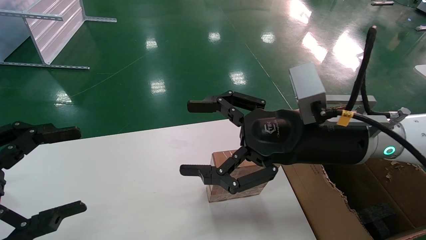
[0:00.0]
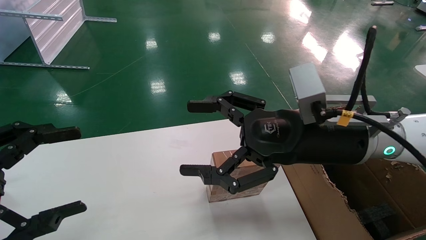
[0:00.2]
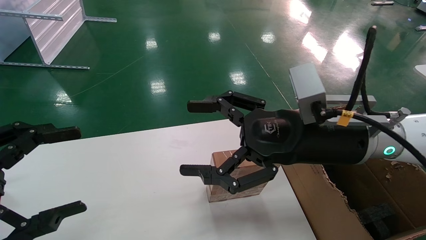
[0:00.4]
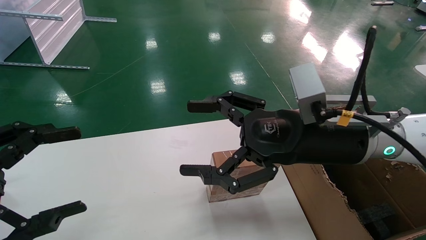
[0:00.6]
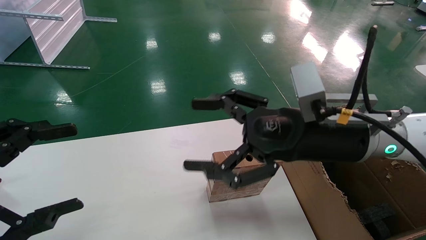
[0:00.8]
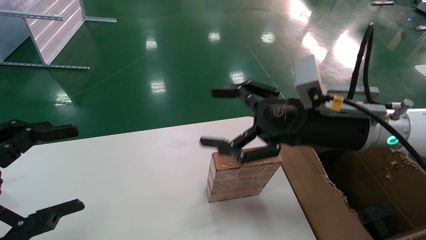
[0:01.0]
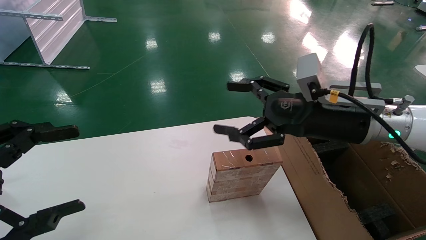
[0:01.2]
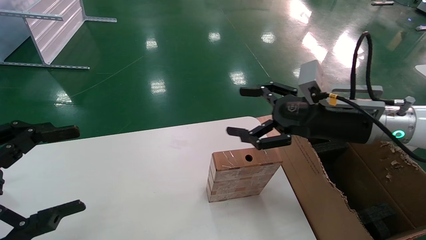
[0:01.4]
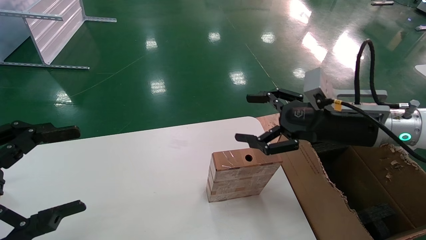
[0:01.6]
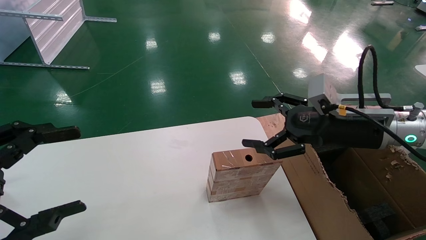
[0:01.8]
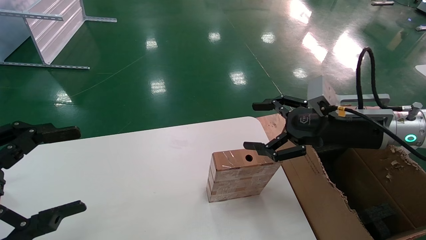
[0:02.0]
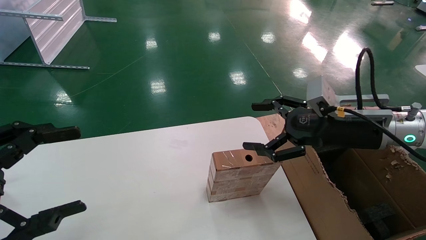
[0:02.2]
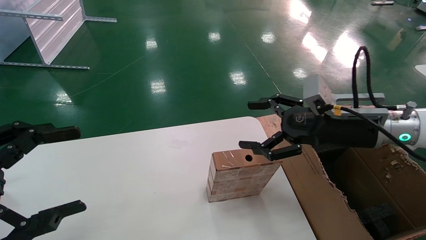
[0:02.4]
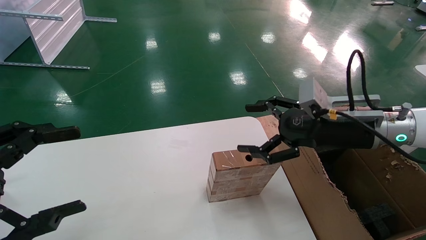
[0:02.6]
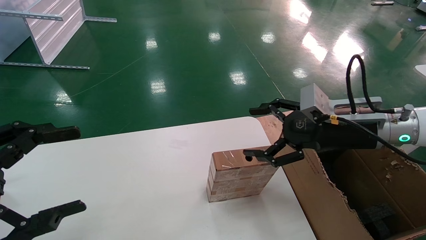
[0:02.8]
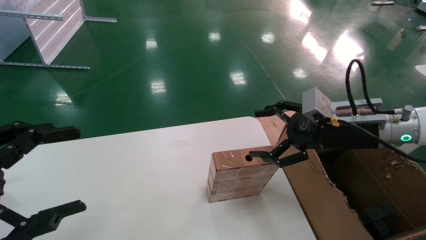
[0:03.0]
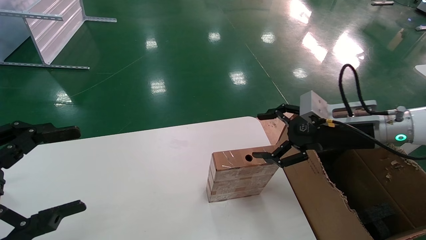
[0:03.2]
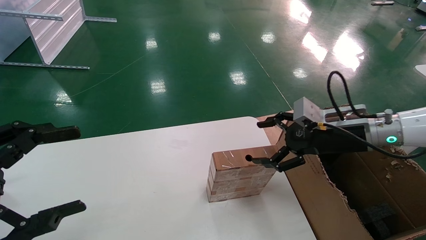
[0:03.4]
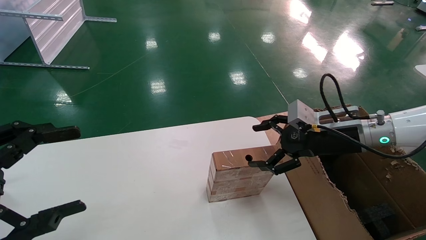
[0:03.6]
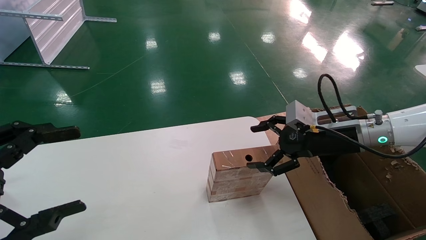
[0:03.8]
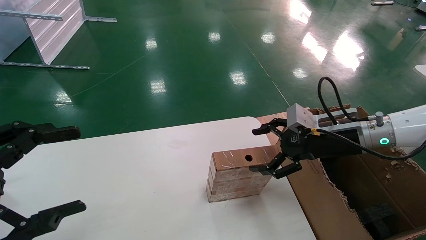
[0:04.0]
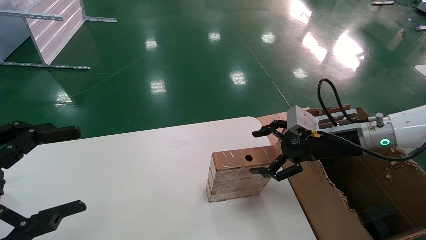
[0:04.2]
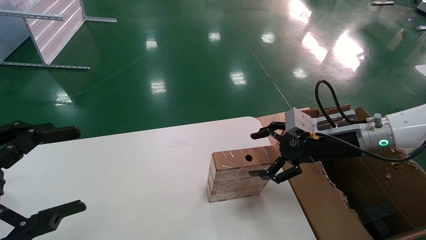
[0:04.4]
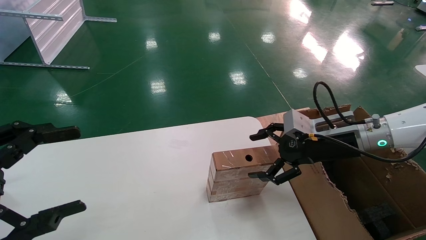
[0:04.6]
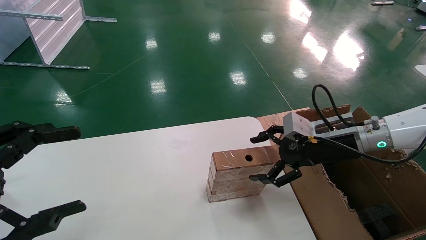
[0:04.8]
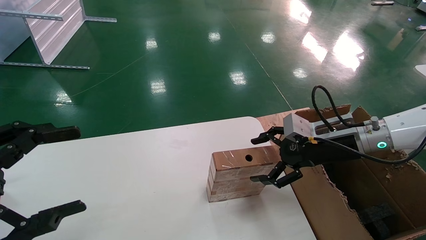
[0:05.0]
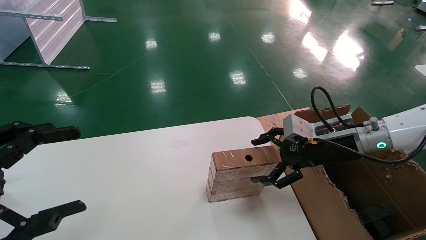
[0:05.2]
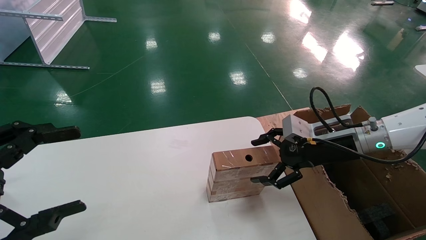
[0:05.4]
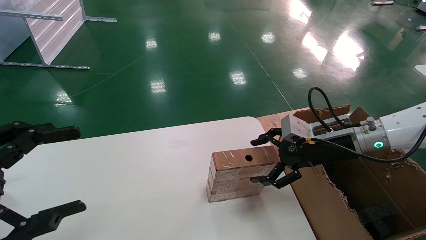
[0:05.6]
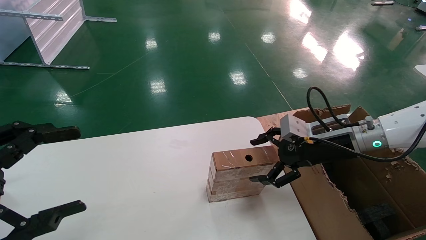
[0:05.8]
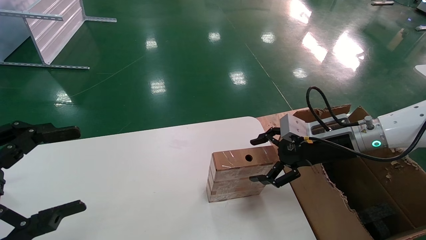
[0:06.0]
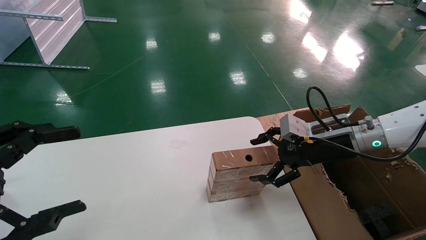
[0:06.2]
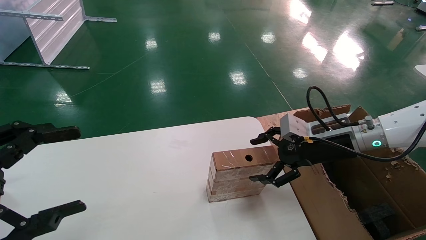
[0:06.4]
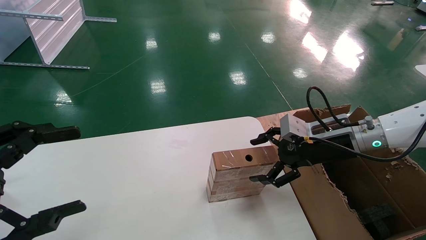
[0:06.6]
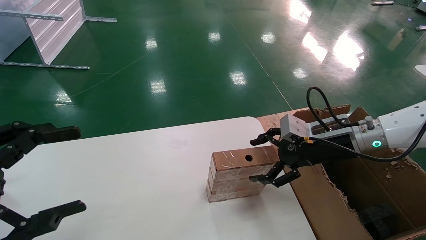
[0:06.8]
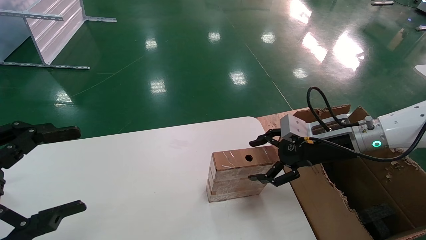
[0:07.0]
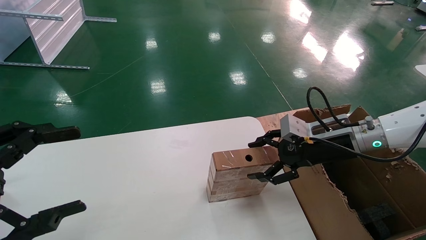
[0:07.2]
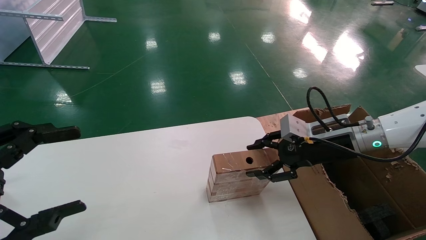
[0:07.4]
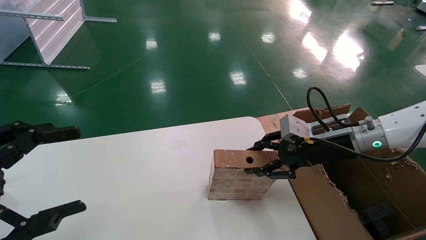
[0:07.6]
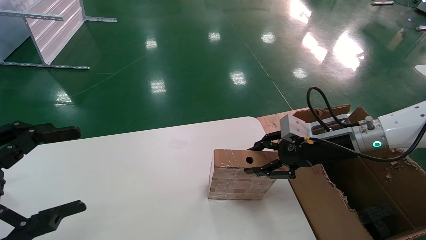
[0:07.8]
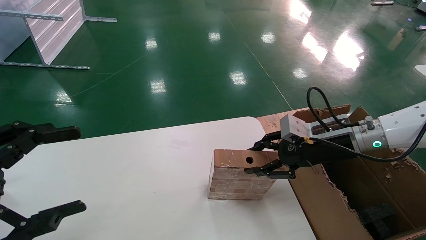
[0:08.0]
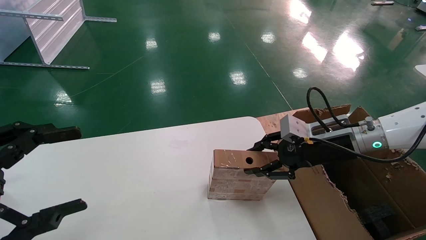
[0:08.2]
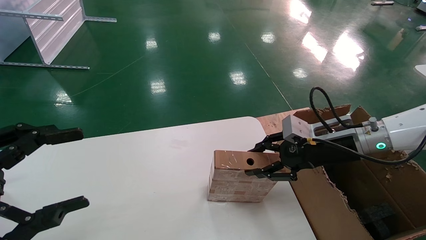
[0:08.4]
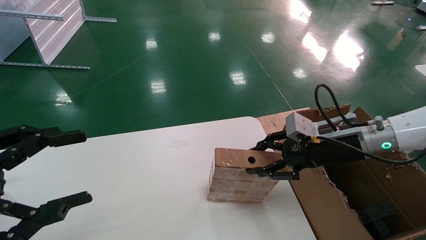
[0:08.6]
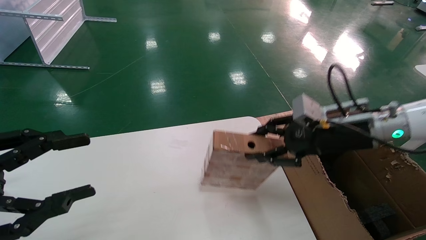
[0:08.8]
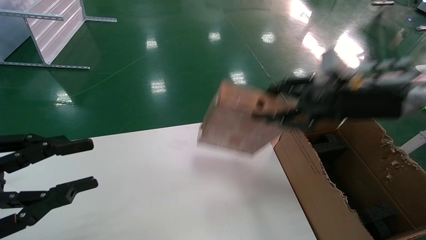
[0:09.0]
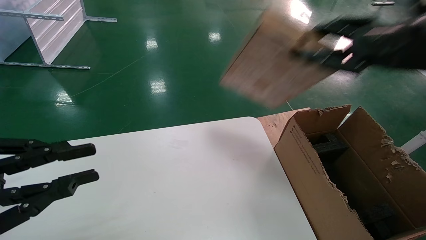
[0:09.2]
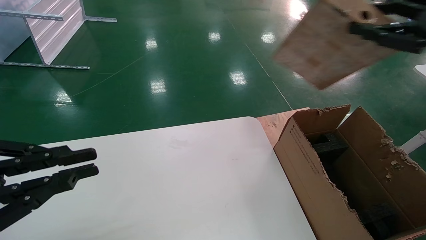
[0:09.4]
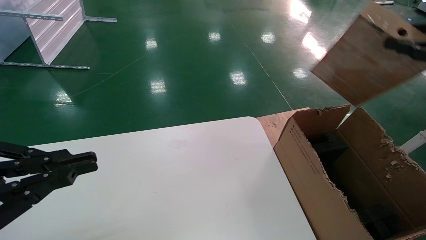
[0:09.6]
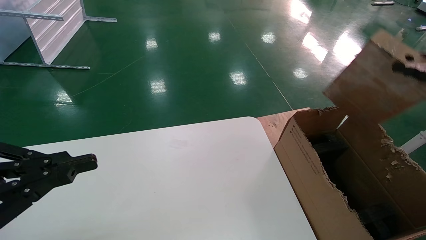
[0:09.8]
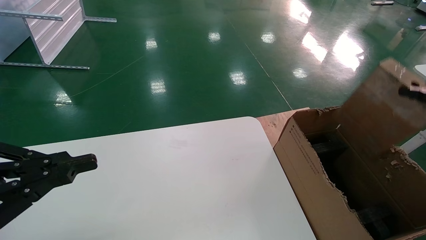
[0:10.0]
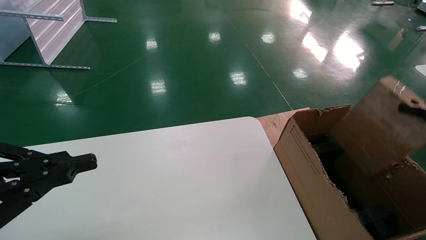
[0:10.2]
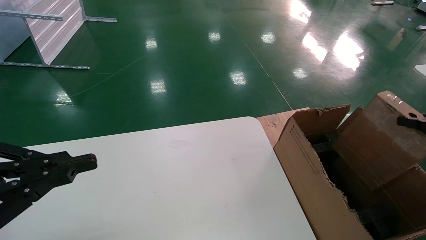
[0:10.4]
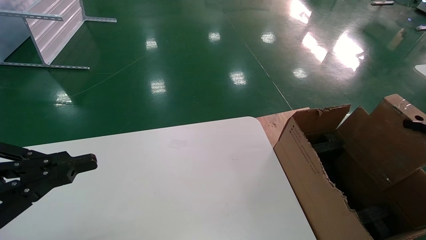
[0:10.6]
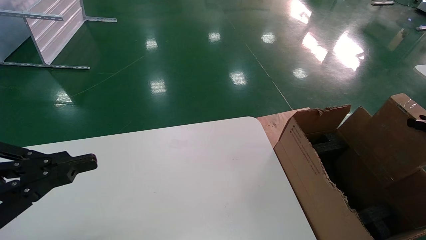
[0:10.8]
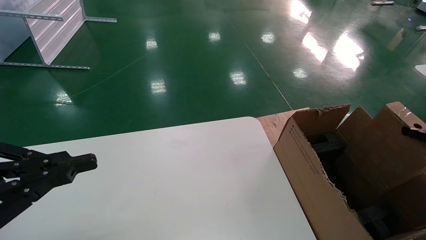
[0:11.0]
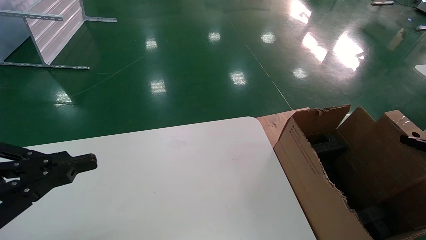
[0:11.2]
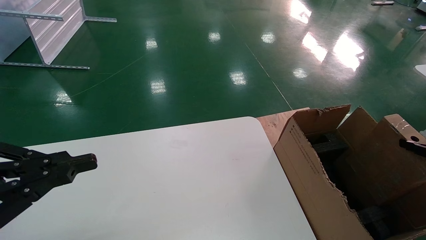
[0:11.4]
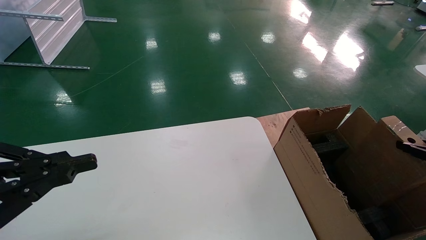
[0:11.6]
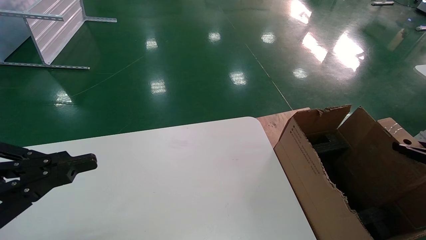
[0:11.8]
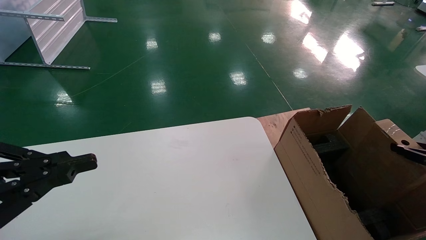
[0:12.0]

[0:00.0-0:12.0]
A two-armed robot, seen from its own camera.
Task of the whole recording: put the box on the table into the big box.
Step, 0:01.0 to 0:07.8: Pick up the mouse and the power cord paper box.
0:00.0 to 0:01.6: The right gripper is displaced to the right by about 10 cm.
0:01.6 to 0:03.0: The grippers stay close to where they were, moving slightly.
0:03.0 to 0:04.4: The grippers make only small movements.
0:04.4 to 0:06.0: The two grippers keep their place.
0:06.0 to 0:07.6: The right gripper closes.
0:07.6 to 0:09.0: The left gripper closes up. The right gripper travels upward and backward by about 15 cm.
0:09.0 to 0:10.4: The left gripper closes, while the right gripper goes approximately 25 cm to the right and backward.
0:10.4 to 0:12.0: The right gripper is displaced downward by about 10 cm.

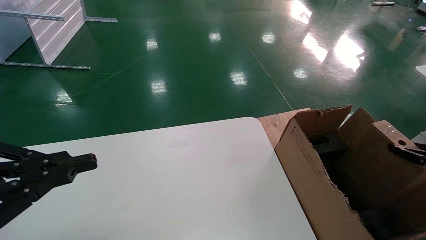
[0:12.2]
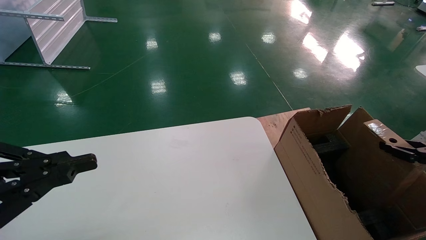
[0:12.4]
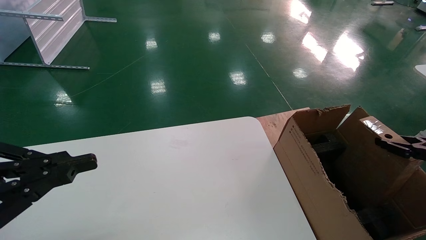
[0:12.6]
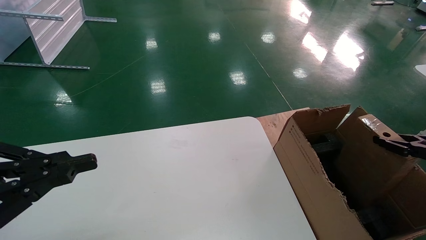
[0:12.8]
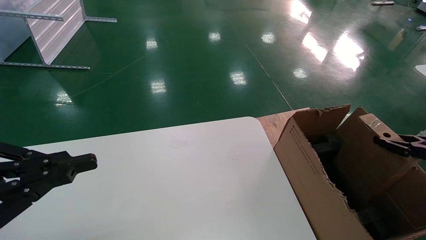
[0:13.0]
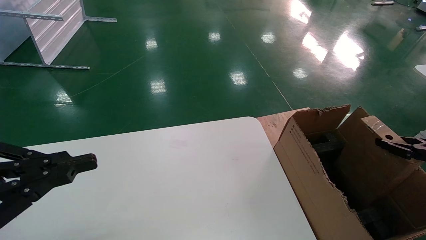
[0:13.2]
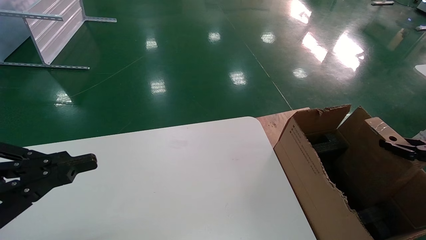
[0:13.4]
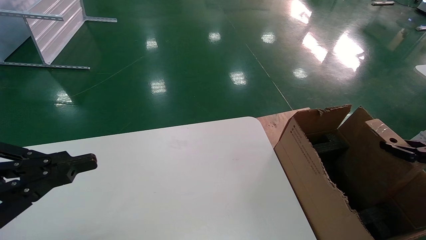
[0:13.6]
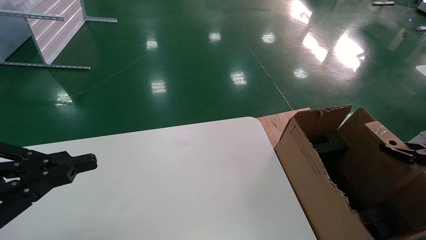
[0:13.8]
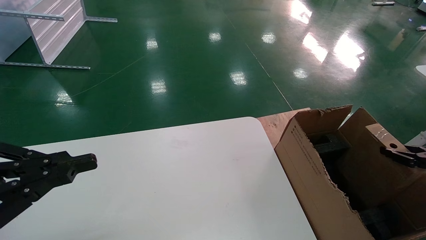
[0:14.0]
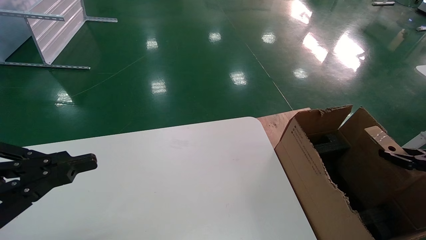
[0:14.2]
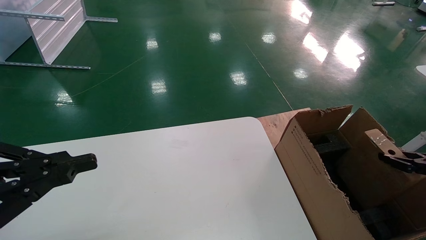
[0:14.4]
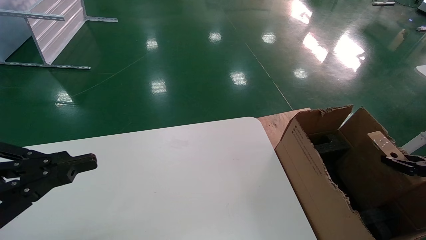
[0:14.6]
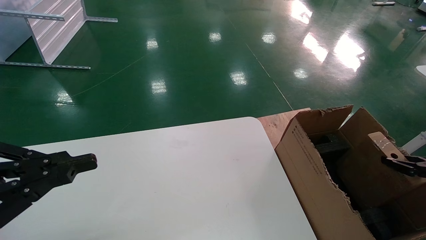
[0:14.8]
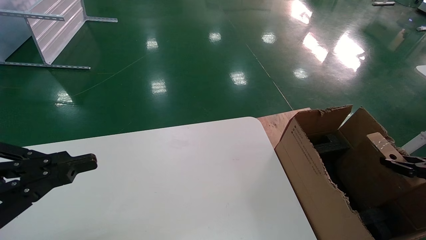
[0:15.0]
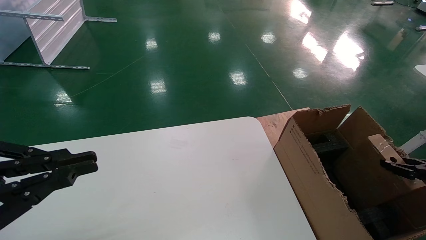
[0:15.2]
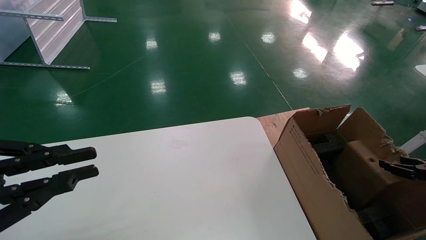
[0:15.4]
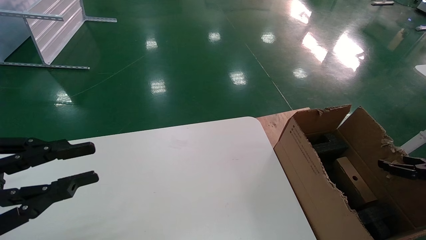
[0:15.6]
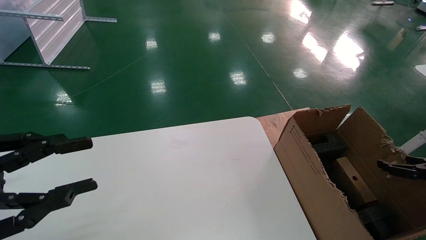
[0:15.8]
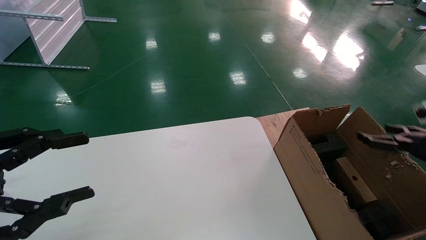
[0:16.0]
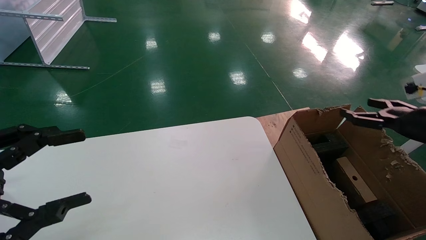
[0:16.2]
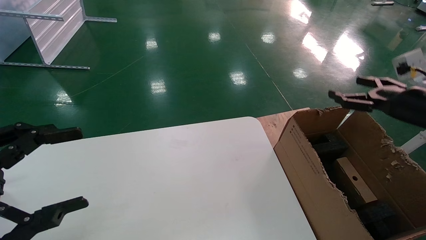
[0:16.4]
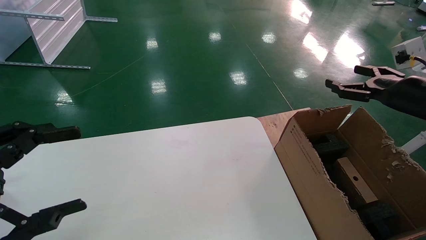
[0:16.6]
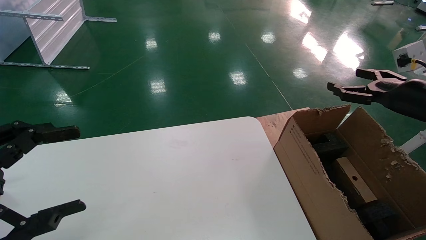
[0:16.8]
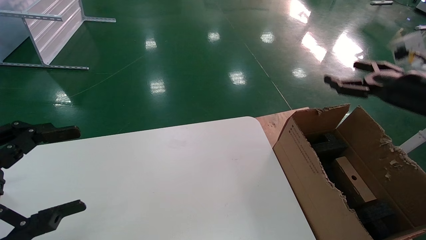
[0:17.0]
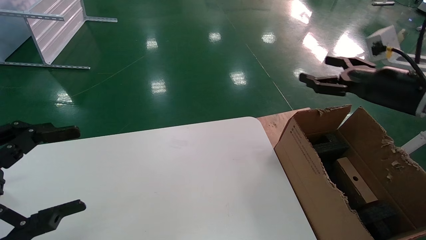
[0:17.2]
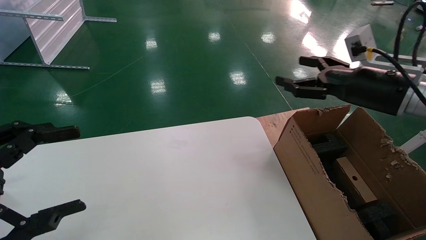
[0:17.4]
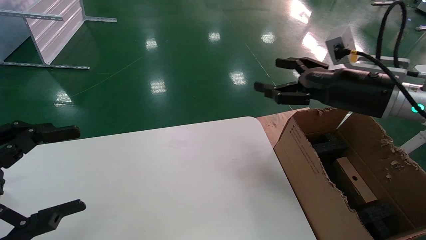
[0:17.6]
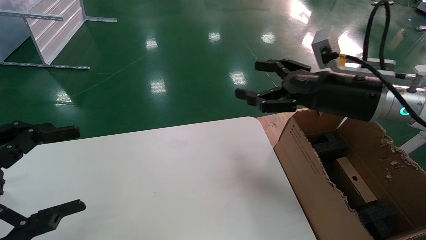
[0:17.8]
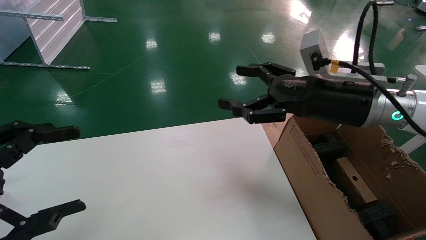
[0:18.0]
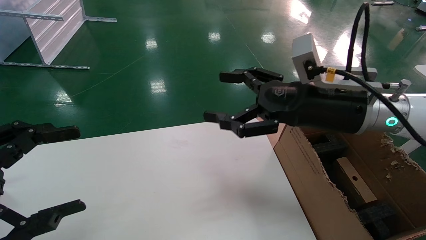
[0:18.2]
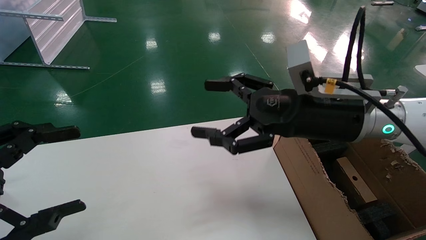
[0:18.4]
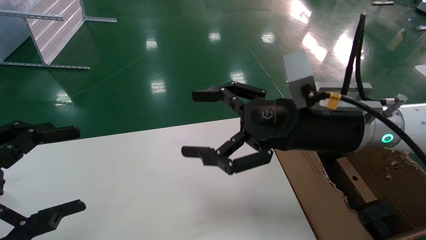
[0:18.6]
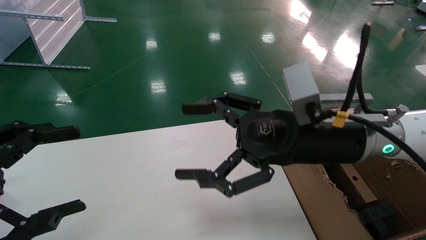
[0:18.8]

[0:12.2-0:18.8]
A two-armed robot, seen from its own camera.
Task of the whole recording: put the box on the table into the big box.
Step, 0:12.2 to 0:15.6: Place the mouse and the power cord paper box into the container.
0:13.8 to 0:15.4: The grippers move only a little.
0:15.4 to 0:17.2: The left gripper opens its fingers, while the right gripper travels to the left, upward and forward by about 25 cm, and opens up.
0:17.2 to 0:18.8: The right gripper moves to the left, approximately 20 cm.
